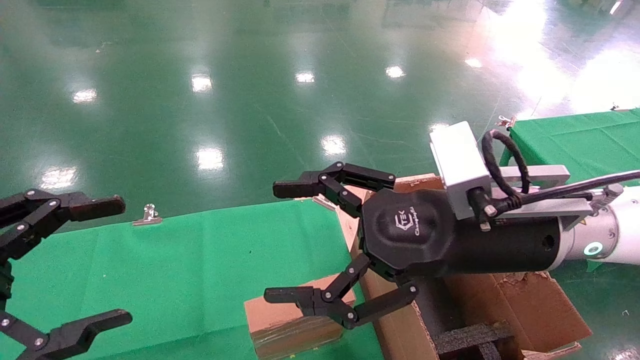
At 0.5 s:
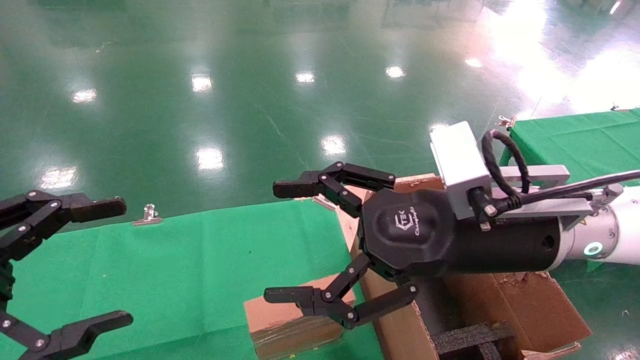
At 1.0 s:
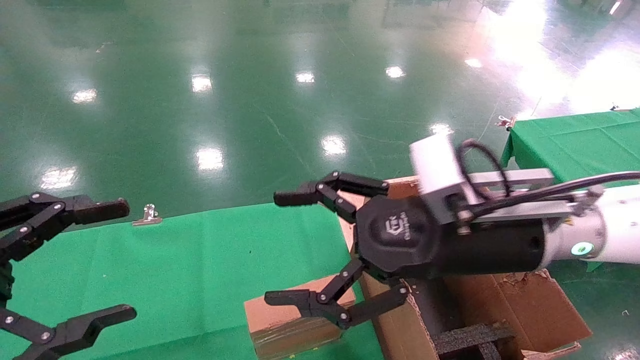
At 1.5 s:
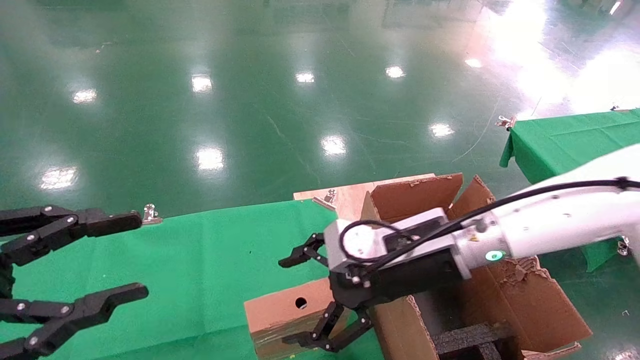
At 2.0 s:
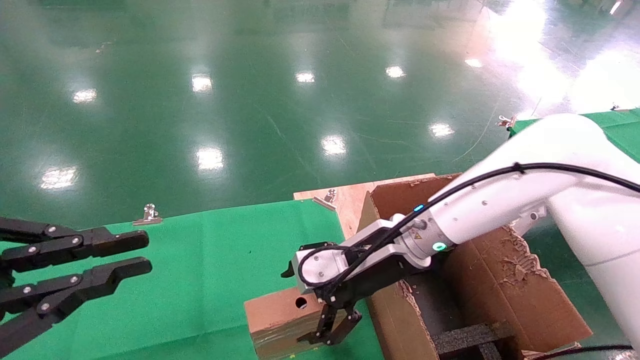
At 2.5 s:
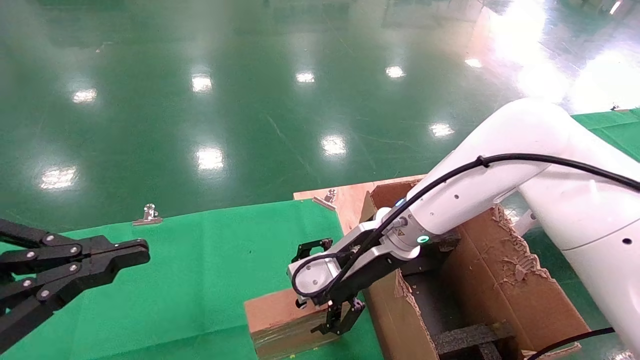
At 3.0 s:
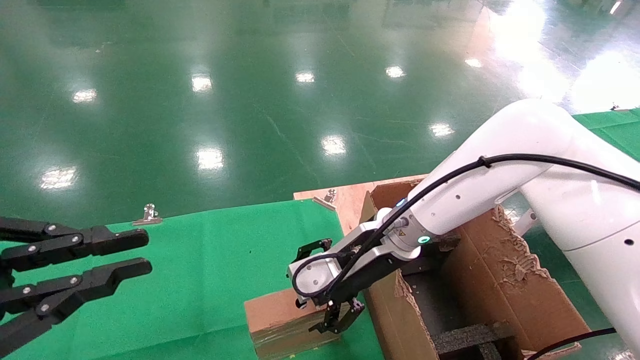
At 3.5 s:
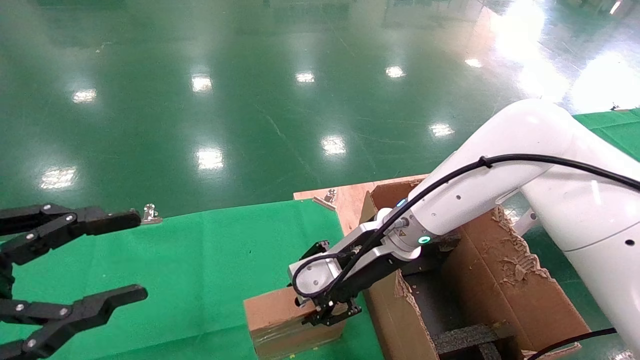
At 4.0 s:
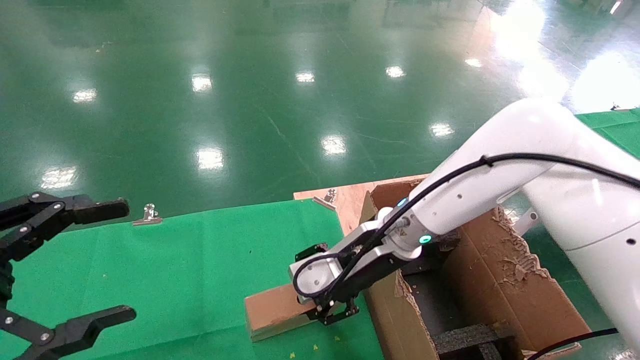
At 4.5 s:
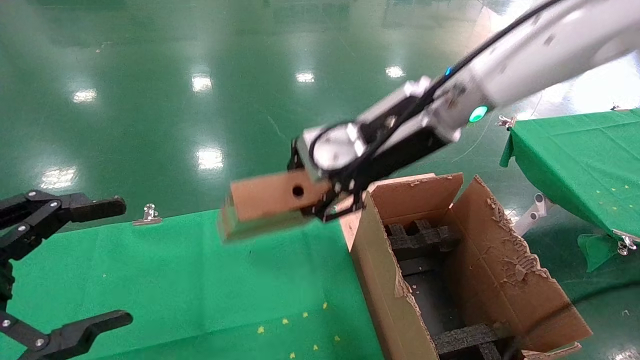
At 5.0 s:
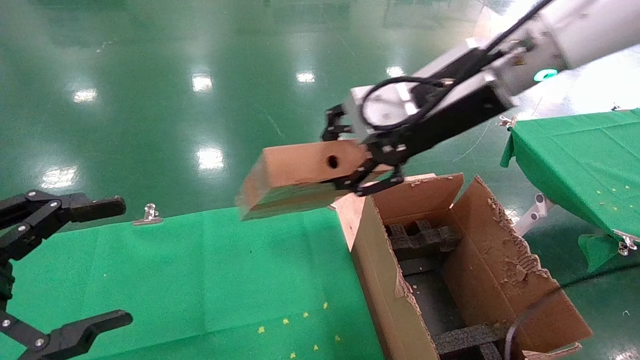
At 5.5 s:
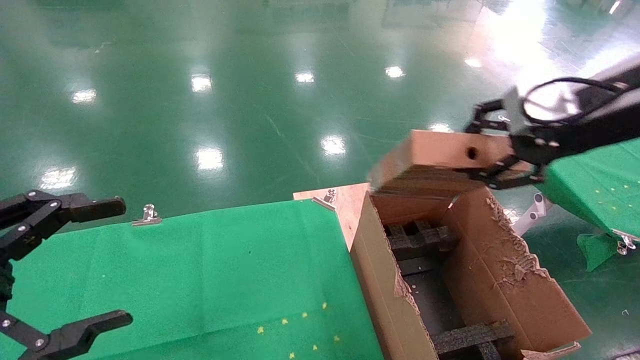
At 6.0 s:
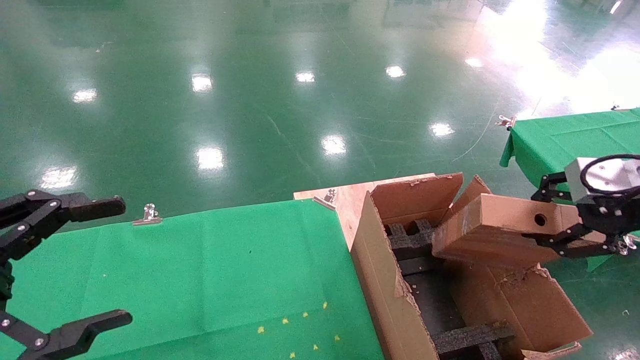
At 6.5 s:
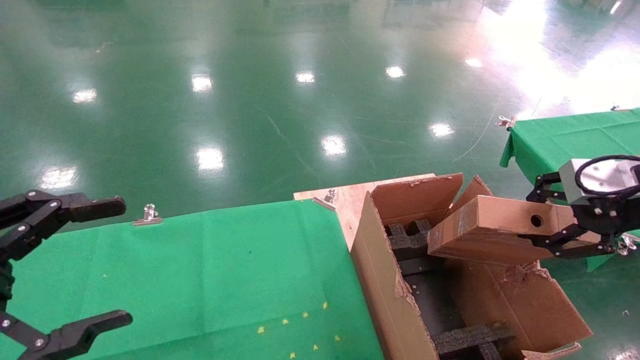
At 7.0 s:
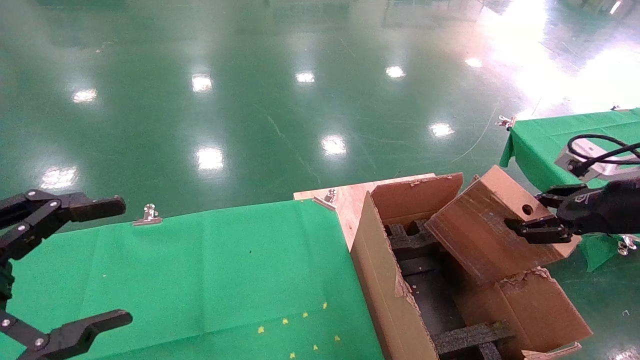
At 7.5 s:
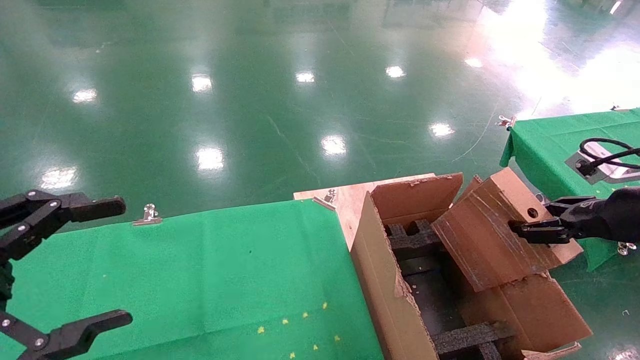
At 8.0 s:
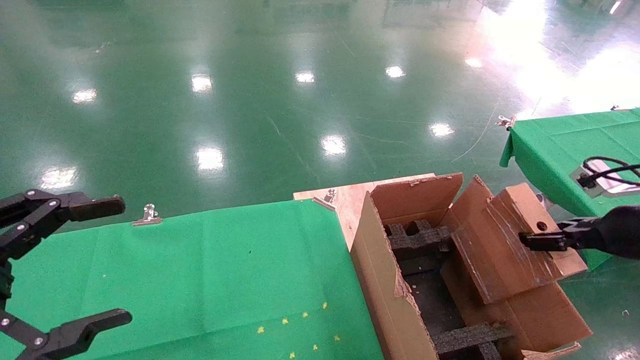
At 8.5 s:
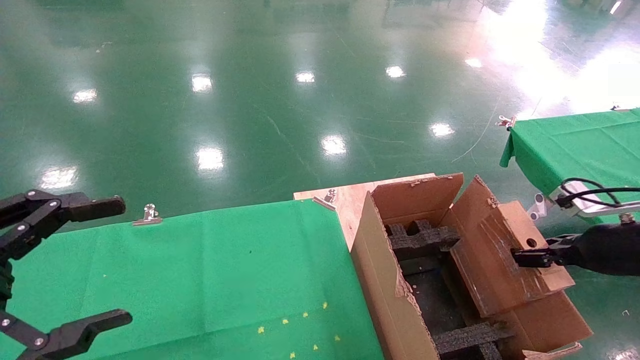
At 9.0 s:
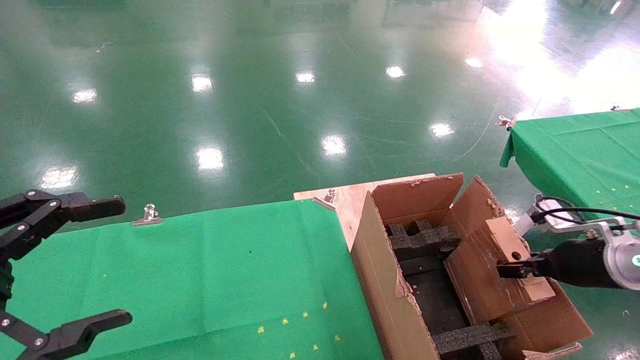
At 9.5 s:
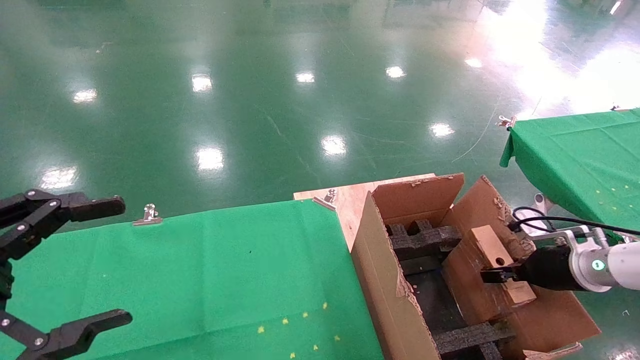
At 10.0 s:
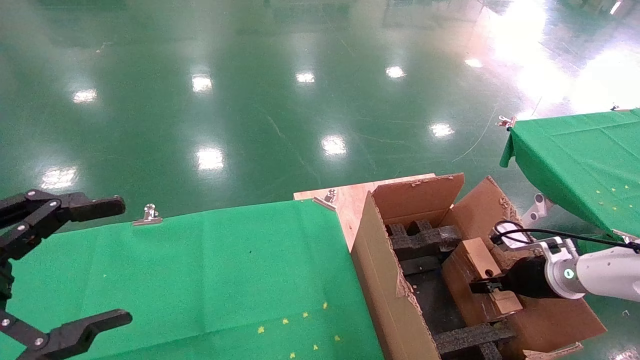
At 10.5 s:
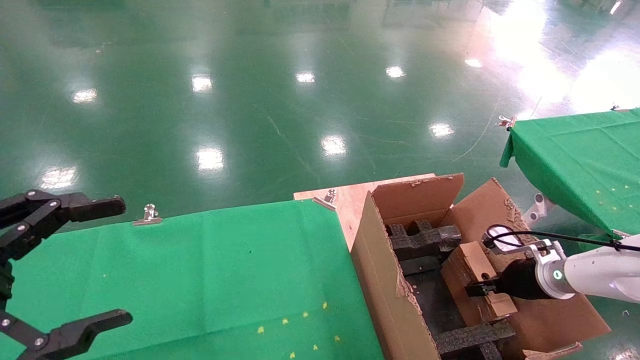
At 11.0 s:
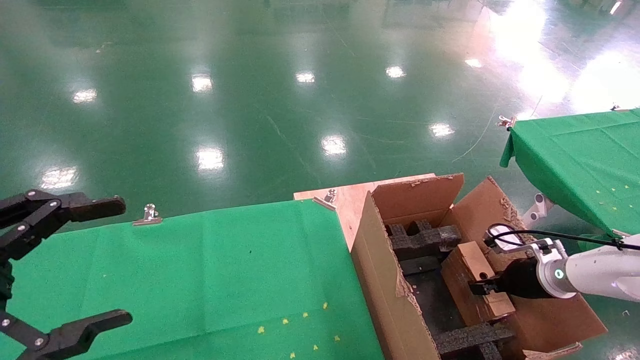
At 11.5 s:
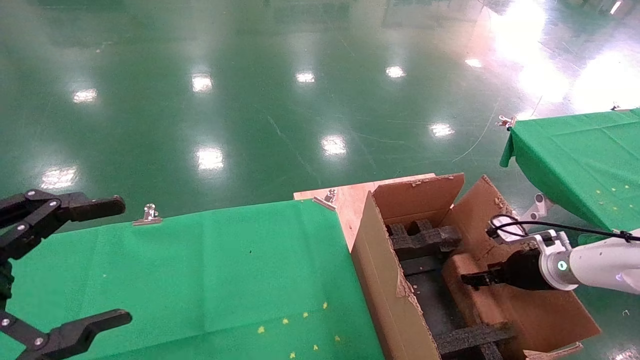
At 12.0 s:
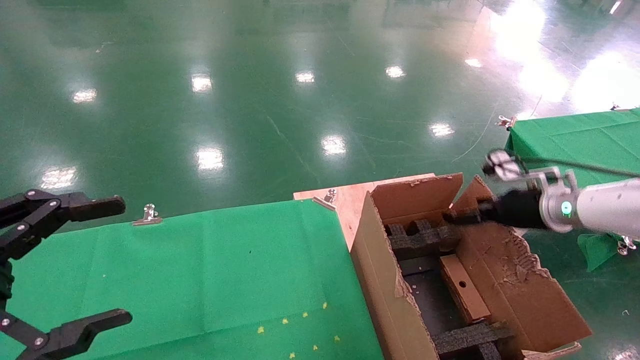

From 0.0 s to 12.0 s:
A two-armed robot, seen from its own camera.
Task of the whole recording: using a robotic arm to pick up a cardboard box and palace it the carton.
Step, from 1.0 s to 3.5 s: Pick up the mouse and the power cord paper box.
From 0.0 s to 2.0 s: The right gripper heads forward, downward and to the left, covering about 15 cm; the left gripper closes.
From 2.0 s to 4.0 s: The left gripper opens up. The right gripper closes its fingers.
From 4.0 s to 6.0 s: The right gripper heads to the right and backward, covering roughly 30 cm.
From 6.0 s to 8.0 s: The right gripper goes some 10 cm downward and to the right.
From 8.0 s to 10.0 s: The right gripper is displaced downward and forward by some 20 cm.
From 10.0 s to 12.0 s: The right gripper moves upward, approximately 10 cm, and opens up.

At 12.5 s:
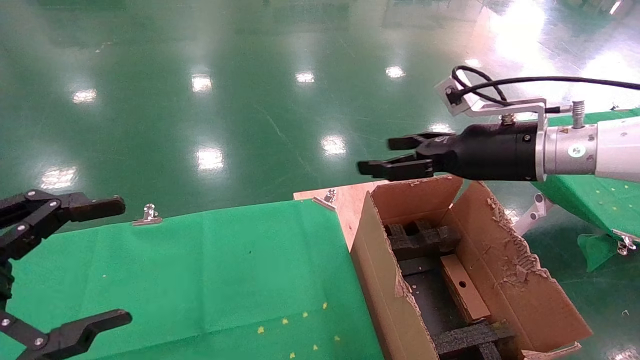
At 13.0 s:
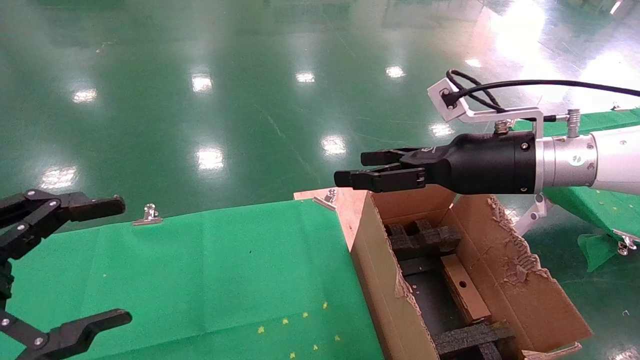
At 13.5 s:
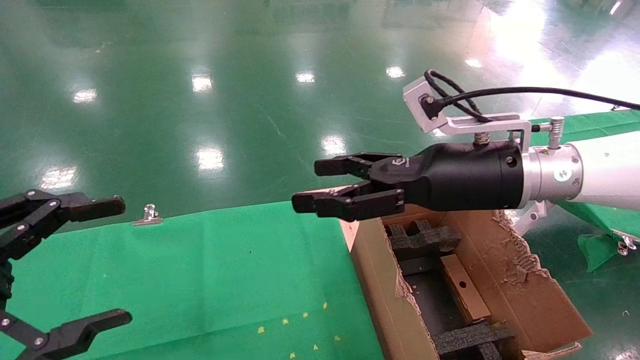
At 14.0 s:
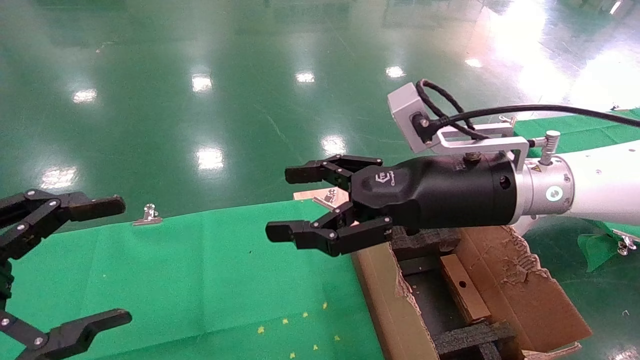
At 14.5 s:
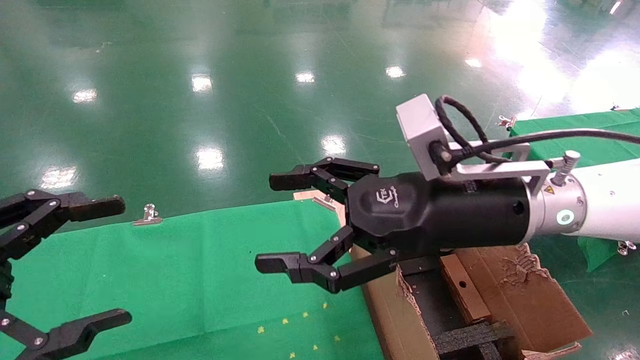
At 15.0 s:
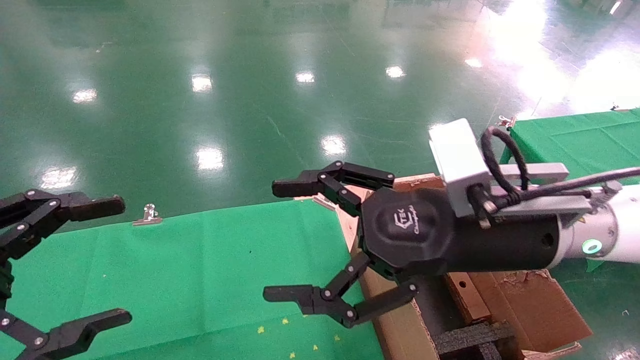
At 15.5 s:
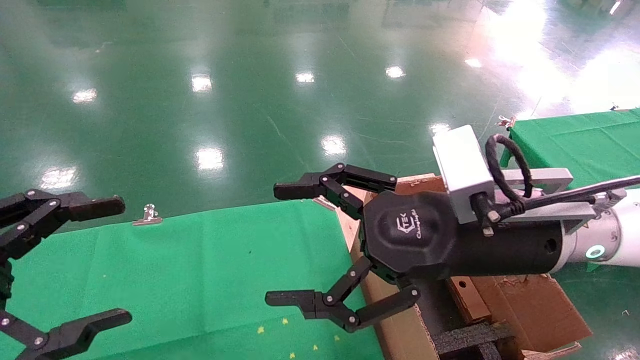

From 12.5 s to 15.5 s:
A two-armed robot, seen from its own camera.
Task of the whole recording: using a robotic arm to pick up a cardboard box and palace it the carton.
From 12.5 s to 14.0 s: The right gripper is displaced to the left and backward by roughly 10 cm.
From 14.0 s to 15.5 s: The right gripper goes roughly 5 cm backward.

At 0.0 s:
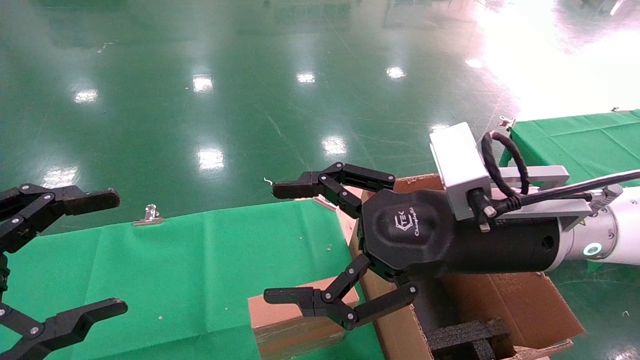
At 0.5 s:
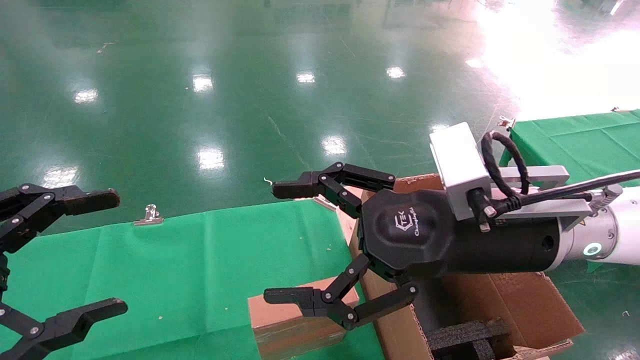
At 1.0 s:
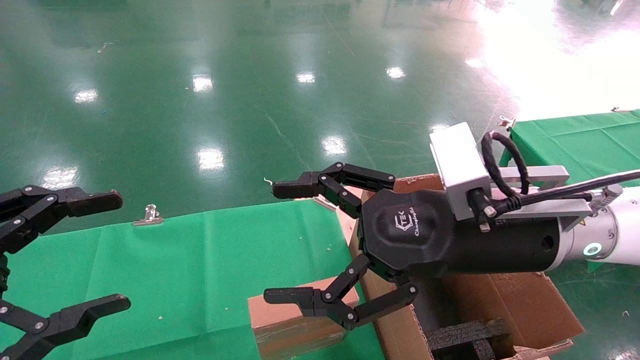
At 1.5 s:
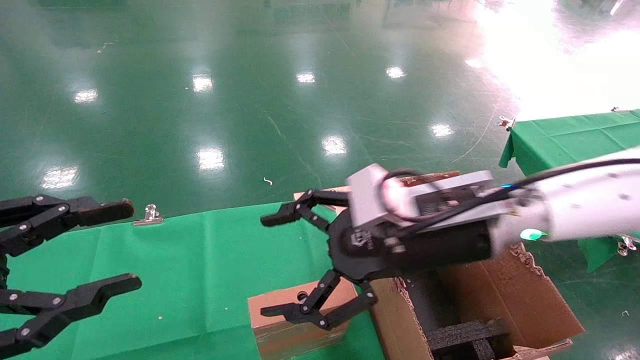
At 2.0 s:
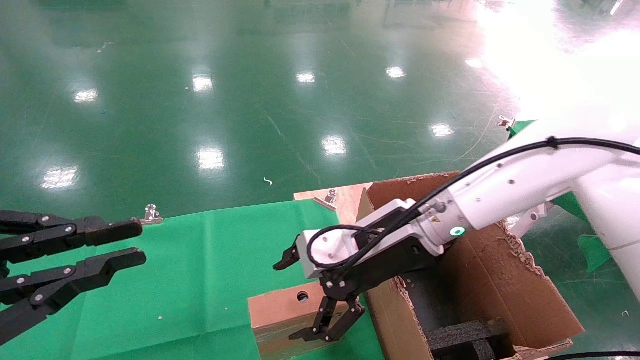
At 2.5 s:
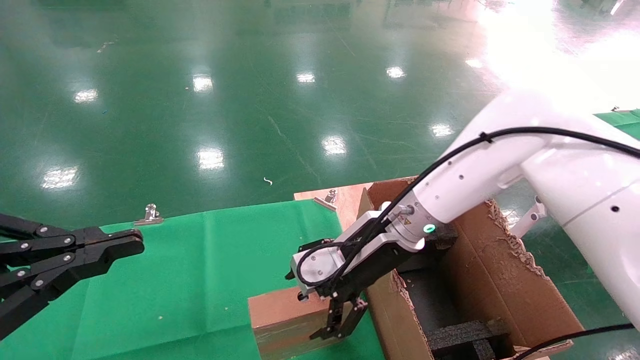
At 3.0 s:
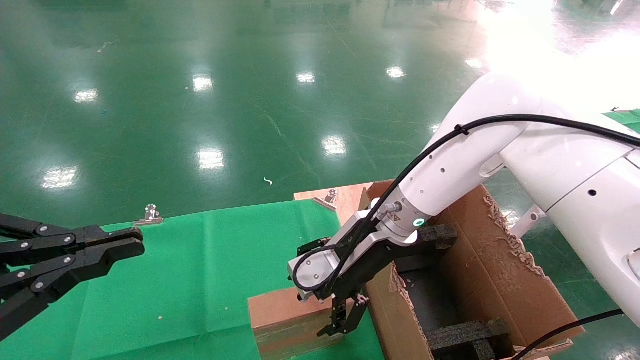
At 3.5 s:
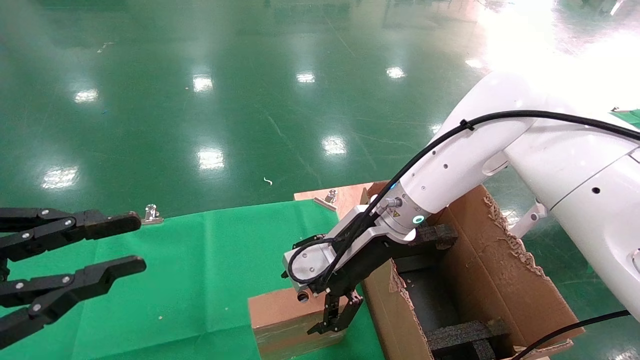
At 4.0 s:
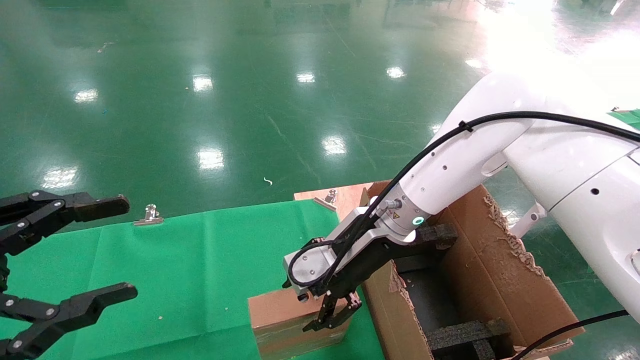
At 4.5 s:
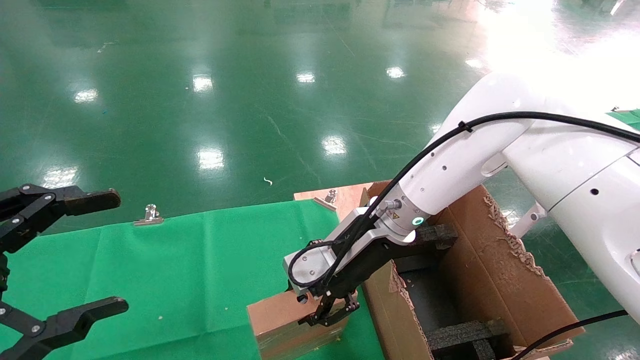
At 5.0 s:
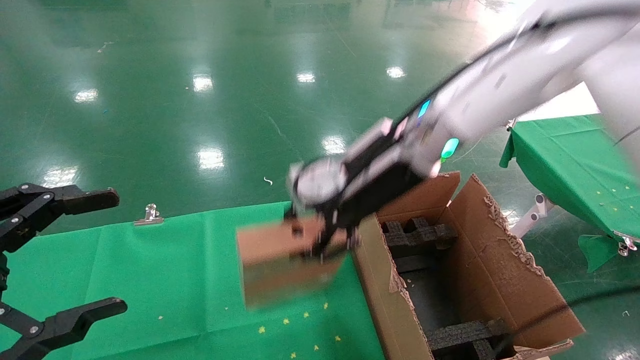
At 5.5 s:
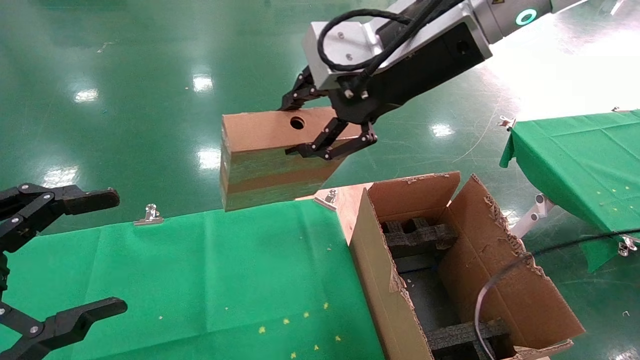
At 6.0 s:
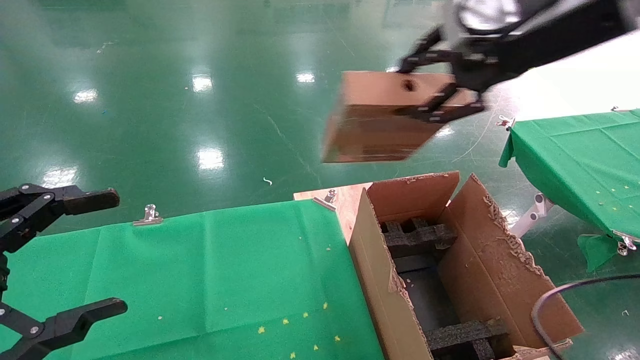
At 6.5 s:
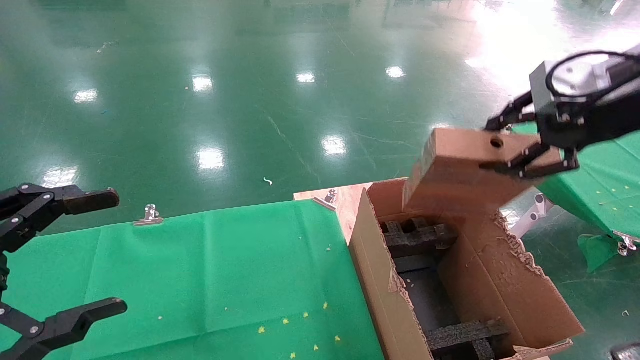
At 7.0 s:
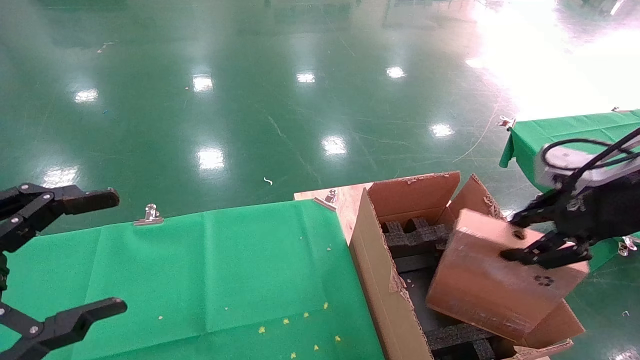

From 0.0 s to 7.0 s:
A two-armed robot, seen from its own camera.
Task of the whole recording: using a robotic arm to pick up a cardboard box and palace it the carton.
Step, from 1.5 s to 4.0 s: Pick up the mouse and the power cord paper box.
From 0.0 s to 2.0 s: The right gripper is displaced forward and to the left by some 10 cm, while the left gripper closes its fingers.
From 3.5 s to 5.0 s: The right gripper heads upward, covering approximately 10 cm, and closes, while the left gripper opens up.
From 5.0 s to 7.0 s: The right gripper is displaced to the right and backward by some 30 cm.
